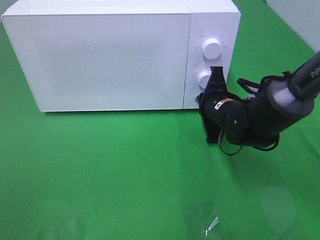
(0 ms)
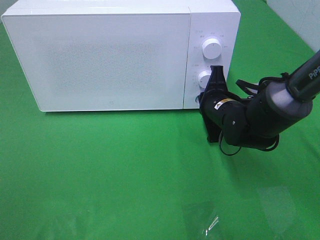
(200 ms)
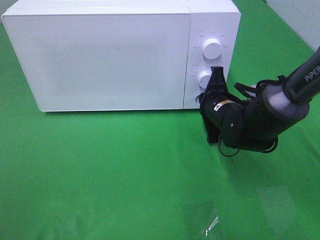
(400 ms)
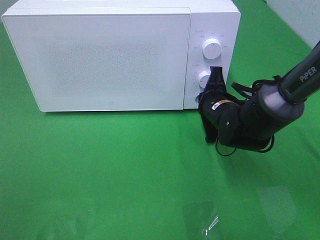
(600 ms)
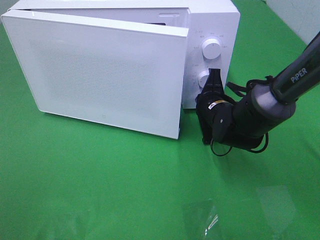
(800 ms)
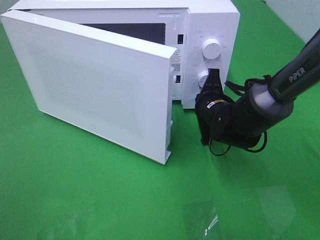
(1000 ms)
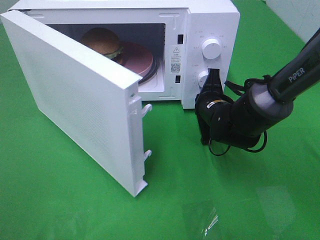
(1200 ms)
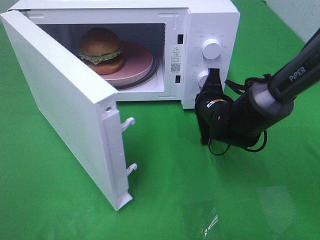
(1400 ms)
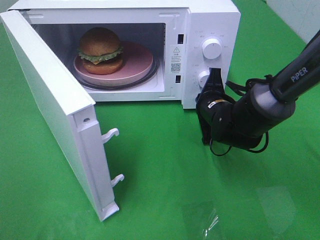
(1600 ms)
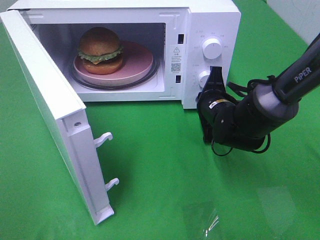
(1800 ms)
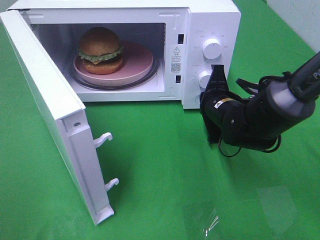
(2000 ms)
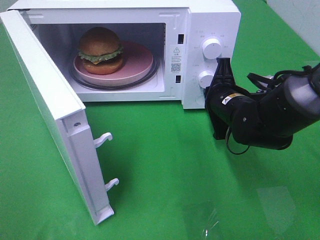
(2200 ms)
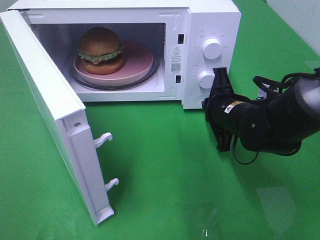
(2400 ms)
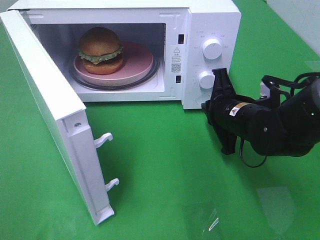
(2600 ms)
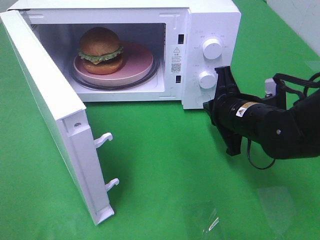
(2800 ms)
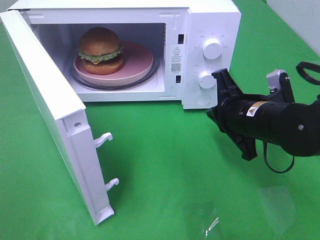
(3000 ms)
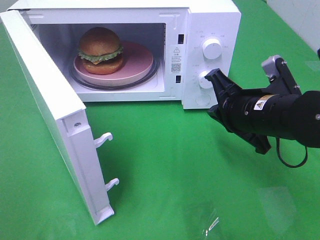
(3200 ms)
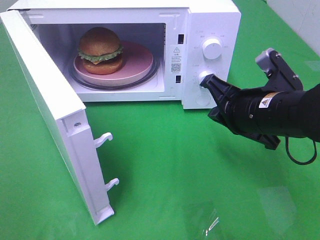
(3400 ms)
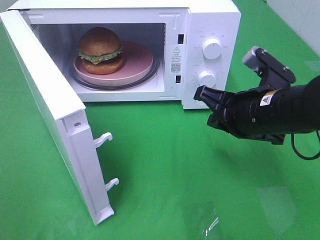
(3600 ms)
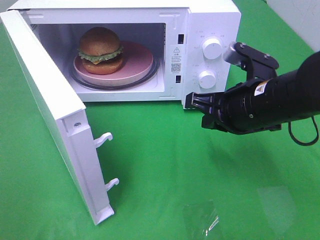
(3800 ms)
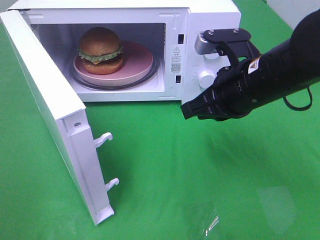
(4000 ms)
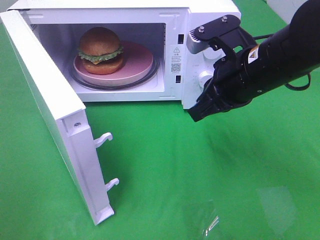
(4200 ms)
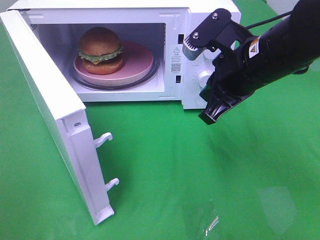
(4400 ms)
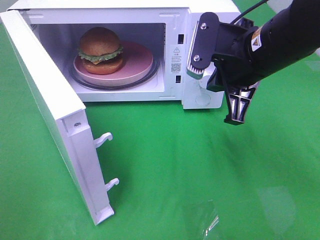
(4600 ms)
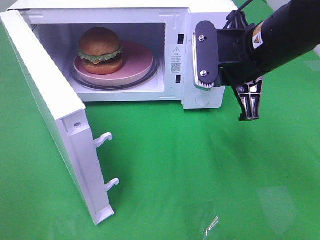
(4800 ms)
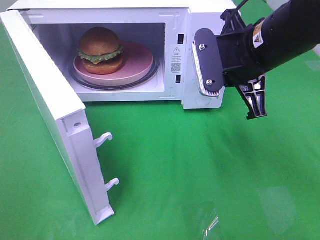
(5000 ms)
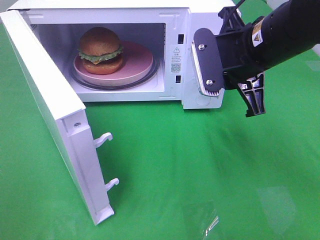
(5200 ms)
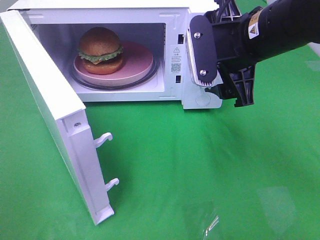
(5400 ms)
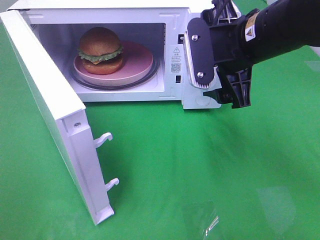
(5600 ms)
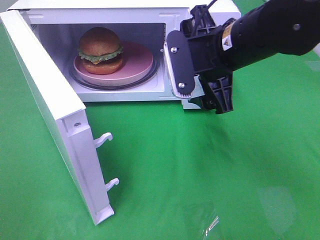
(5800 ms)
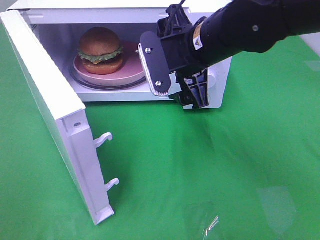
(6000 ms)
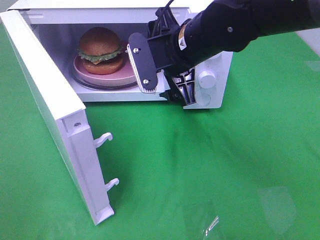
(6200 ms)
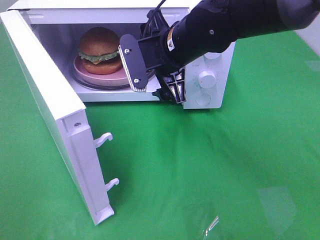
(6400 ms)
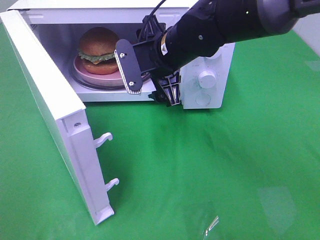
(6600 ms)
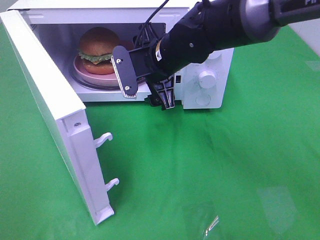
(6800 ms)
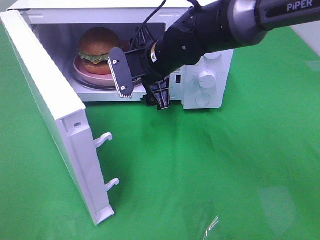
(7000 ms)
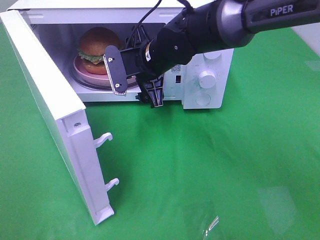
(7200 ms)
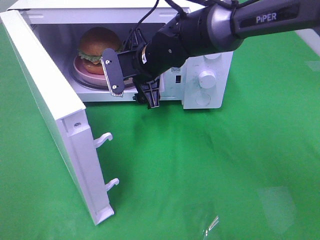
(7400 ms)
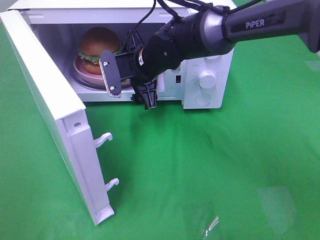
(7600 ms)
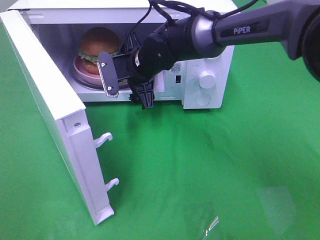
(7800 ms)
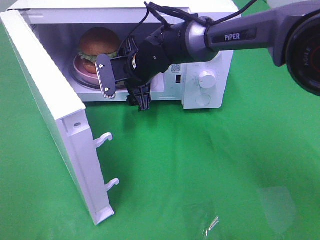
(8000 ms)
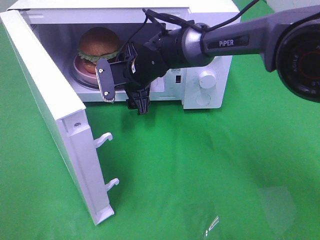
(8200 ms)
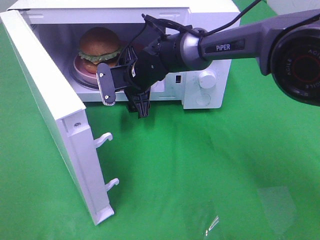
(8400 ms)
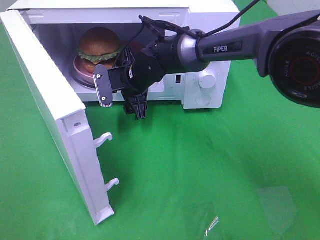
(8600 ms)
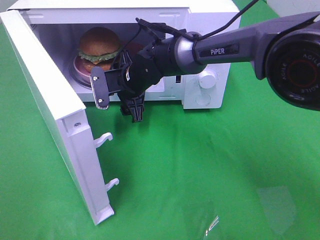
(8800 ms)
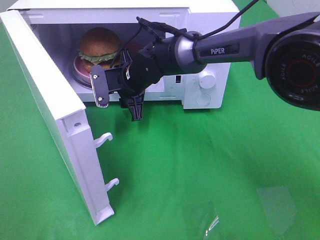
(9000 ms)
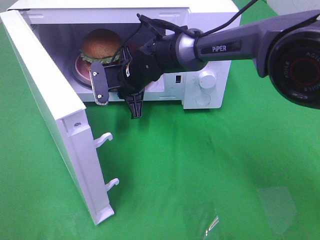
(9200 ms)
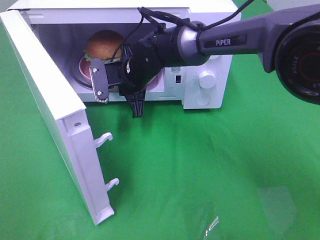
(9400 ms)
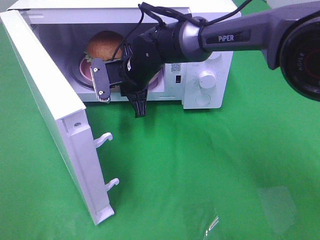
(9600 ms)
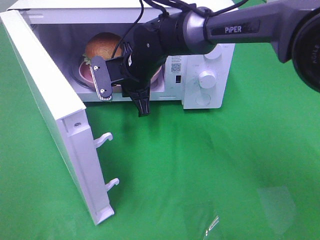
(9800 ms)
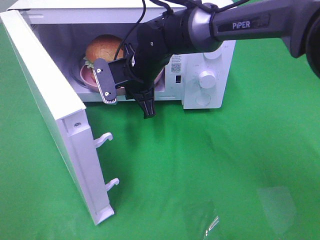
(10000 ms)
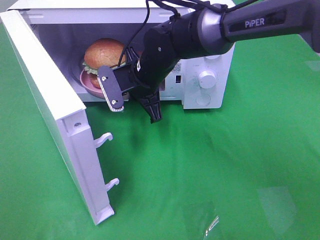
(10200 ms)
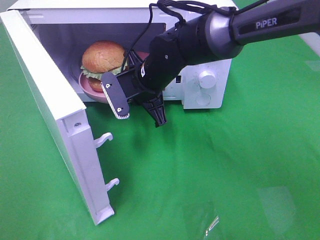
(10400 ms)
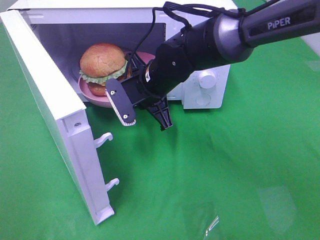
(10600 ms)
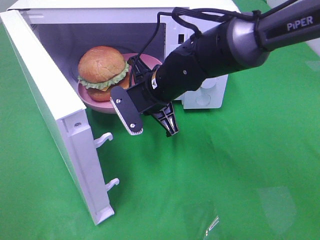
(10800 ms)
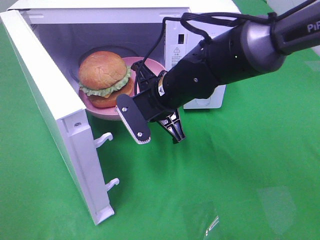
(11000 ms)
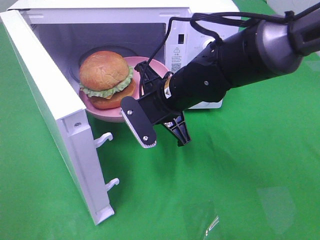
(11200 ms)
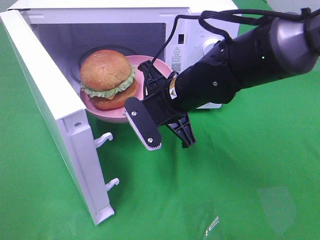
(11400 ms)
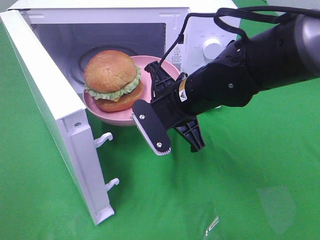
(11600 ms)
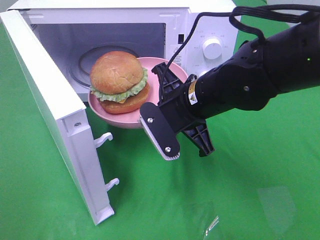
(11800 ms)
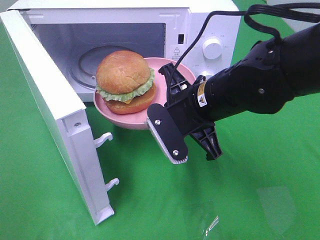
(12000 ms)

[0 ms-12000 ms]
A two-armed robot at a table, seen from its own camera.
Task of the whole recording: Heat the burger.
Step, 0 ms to 2000 ms: Right hand: press the switch.
Step, 2200 ms to 9200 ms: Right hand: grab the plate with the hamburger.
1600 ms to 3000 ms: The right gripper goes about 10 cm backward and upward.
3000 ms to 4400 ms: The right gripper heads upward, covering some 10 cm.
4400 ms to 6000 ms: The right gripper is displaced to the left by some 5 cm, and opens its fingers.
6000 ms to 7600 ms: The right gripper goes approximately 15 cm forward, downward and to the left.
7600 ms to 9000 ms: The right gripper moves some 5 cm, and closes its fingers.
9000 ms to 10400 ms: The right gripper shifts by roughly 5 cm, and closes up.
10400 ms to 12000 ms: The right gripper heads backward and to the right, covering some 15 cm.

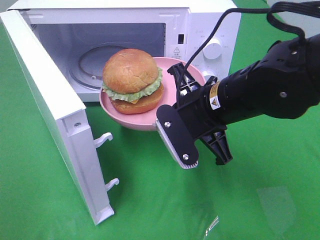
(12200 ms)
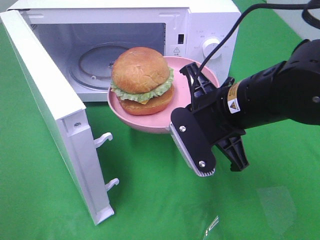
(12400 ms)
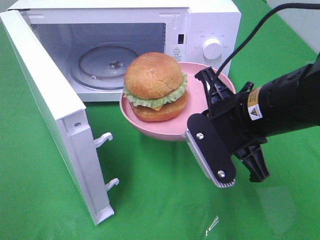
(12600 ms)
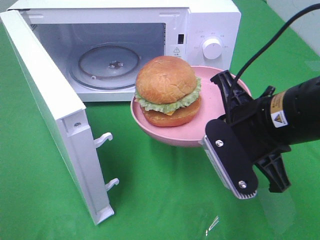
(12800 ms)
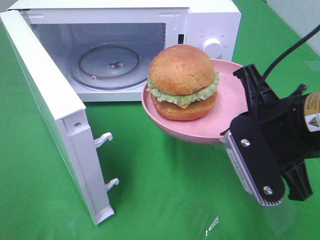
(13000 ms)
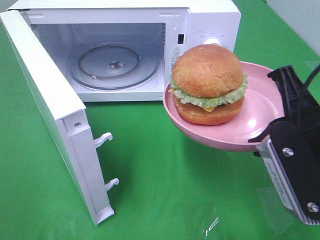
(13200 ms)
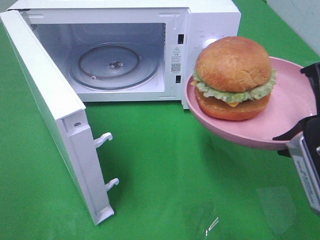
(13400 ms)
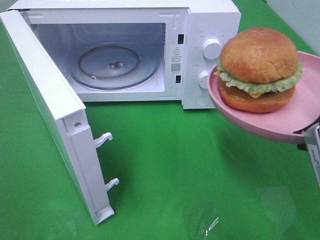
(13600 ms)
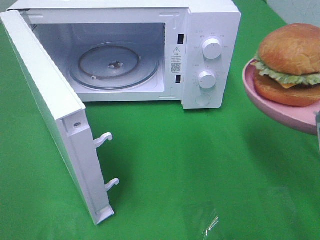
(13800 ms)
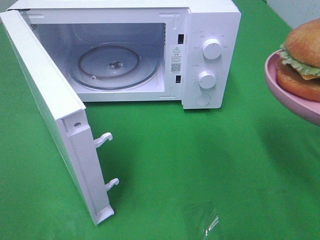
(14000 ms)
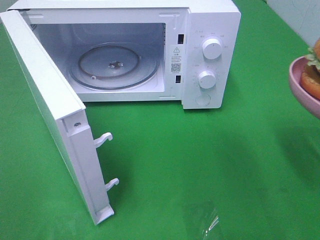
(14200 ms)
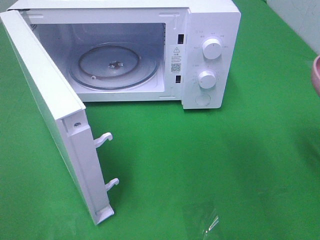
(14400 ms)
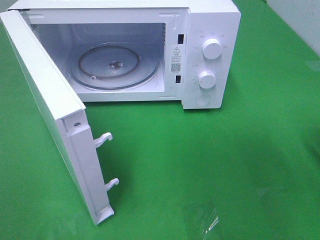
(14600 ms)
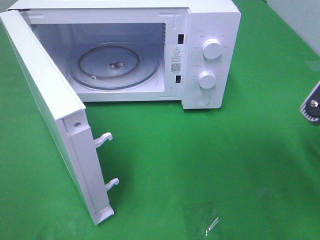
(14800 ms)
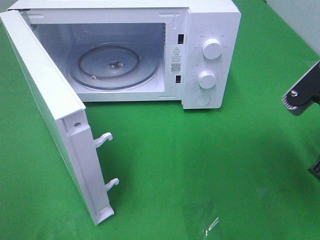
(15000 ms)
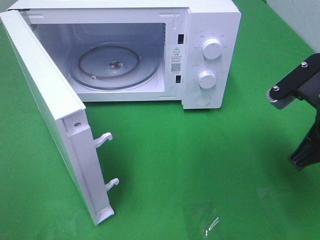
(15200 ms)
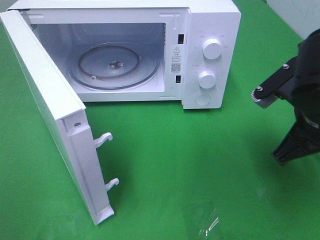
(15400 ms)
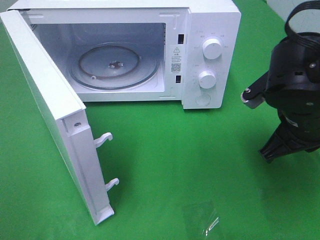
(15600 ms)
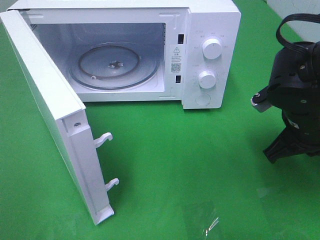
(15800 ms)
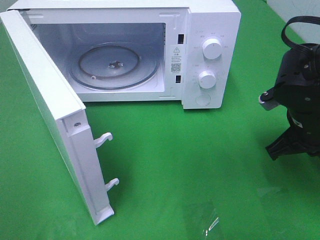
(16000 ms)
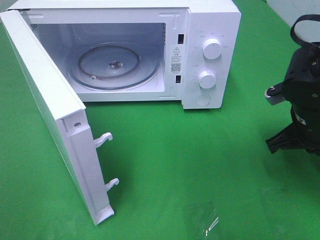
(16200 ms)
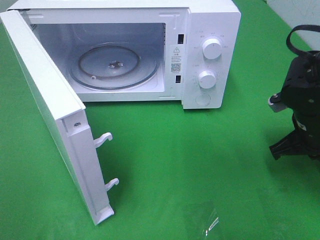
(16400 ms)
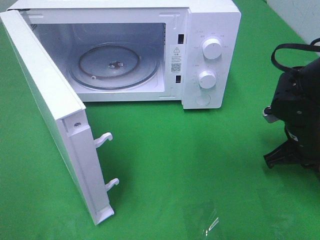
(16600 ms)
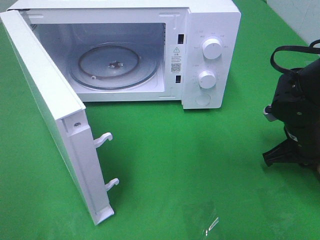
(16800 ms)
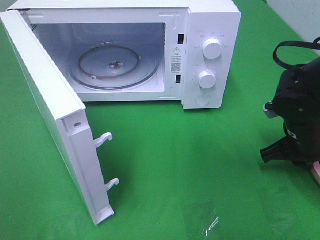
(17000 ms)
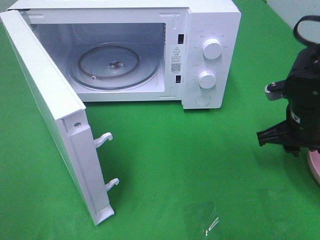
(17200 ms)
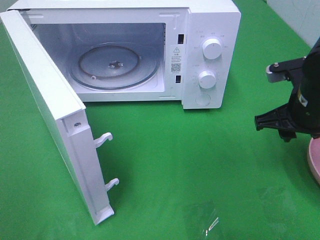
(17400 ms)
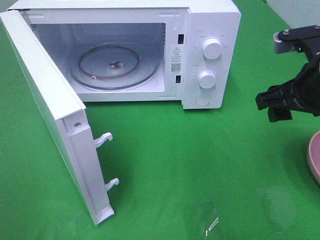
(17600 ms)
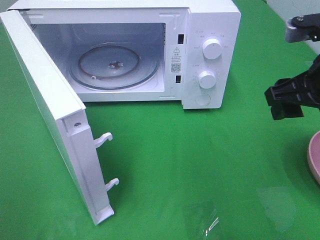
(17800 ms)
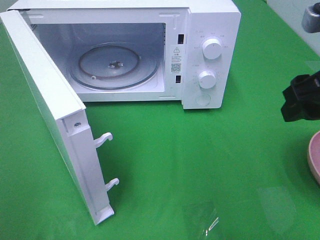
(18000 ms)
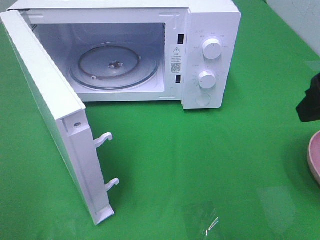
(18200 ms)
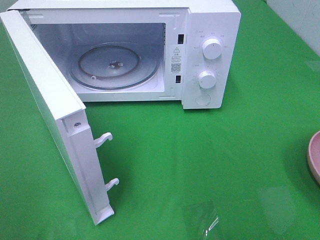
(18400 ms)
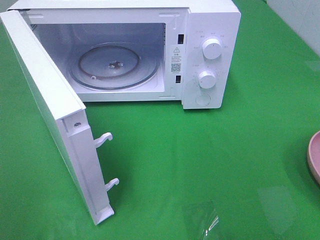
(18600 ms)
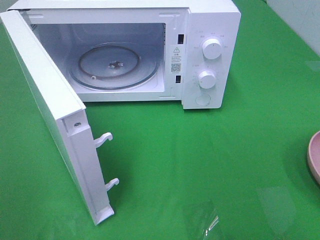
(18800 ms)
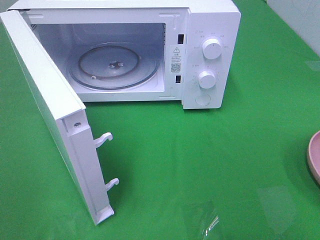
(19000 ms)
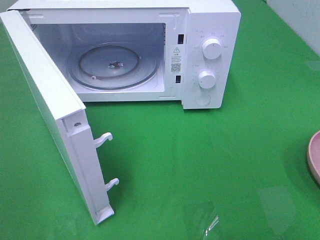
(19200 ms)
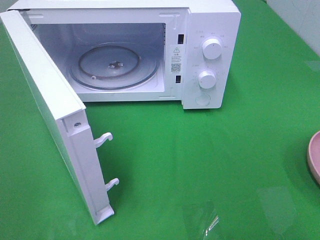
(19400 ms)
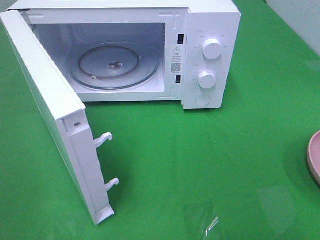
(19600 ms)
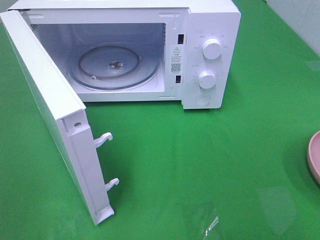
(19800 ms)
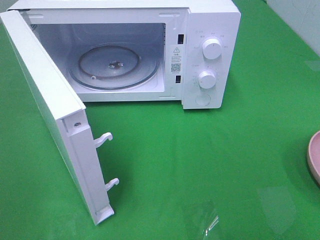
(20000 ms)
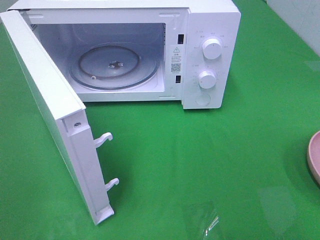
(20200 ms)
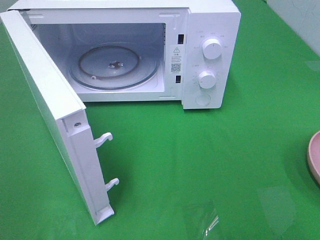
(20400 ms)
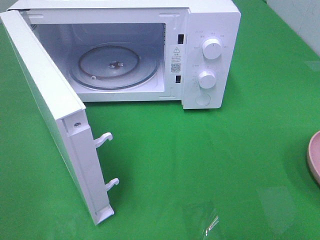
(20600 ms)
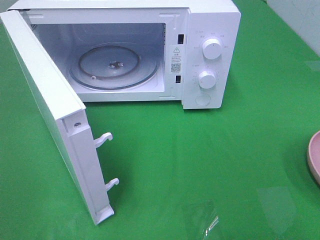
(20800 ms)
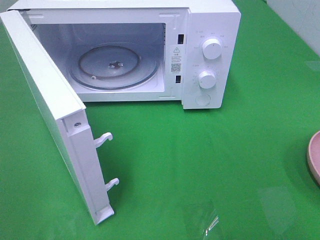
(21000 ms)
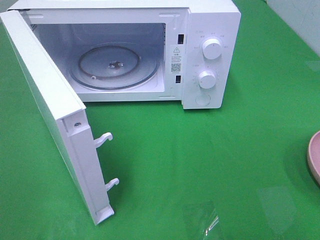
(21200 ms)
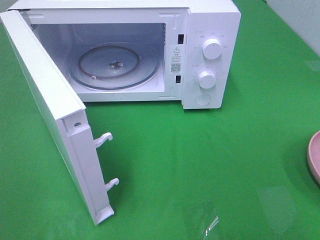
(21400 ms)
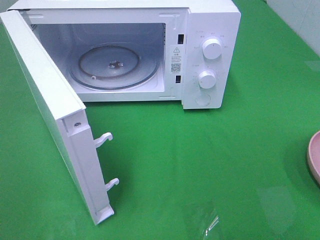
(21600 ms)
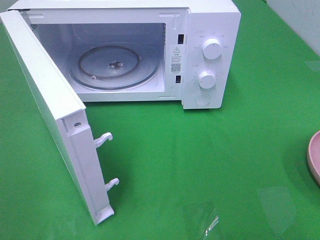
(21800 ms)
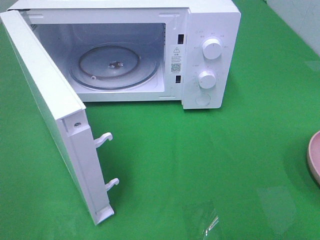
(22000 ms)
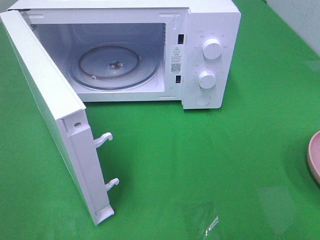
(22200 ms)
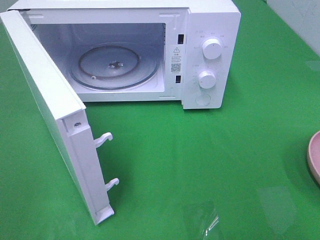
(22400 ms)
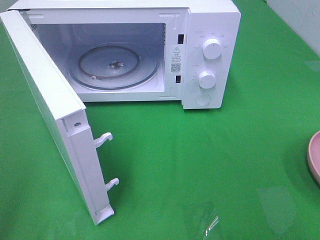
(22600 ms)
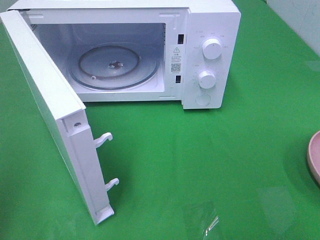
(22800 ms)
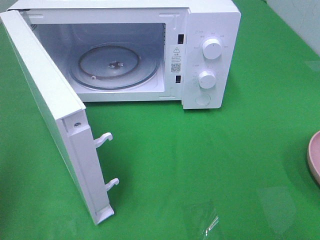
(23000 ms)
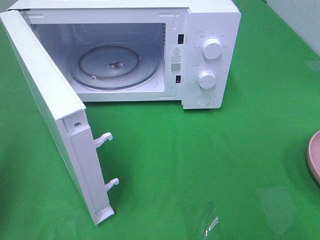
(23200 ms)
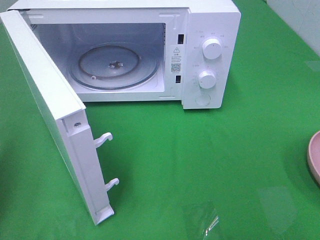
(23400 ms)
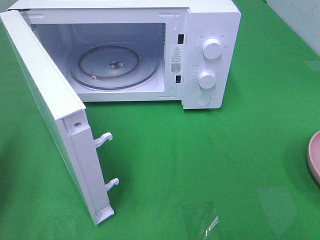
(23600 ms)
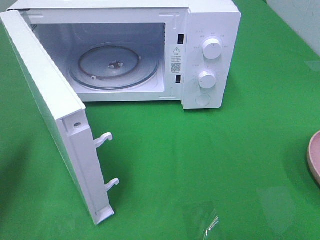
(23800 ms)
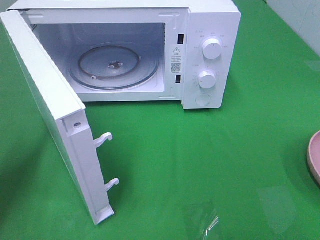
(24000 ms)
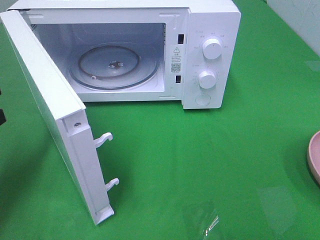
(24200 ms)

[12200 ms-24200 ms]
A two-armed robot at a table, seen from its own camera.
Task of the whole recording: Heat the burger.
Step, 12200 ms to 17000 ms: Right hand: place the plate on the table.
12200 ms to 13800 ms: The right gripper is displaced to the right, backward and upward by approximately 20 cm.
13800 ms to 15200 ms: The right gripper moves forward, about 5 cm.
15200 ms to 16600 ms: The right gripper heads downward and forward, covering some 15 cm.
16600 ms to 18200 ms: The right gripper is displaced upward and backward by approximately 25 cm, and opens.
18200 ms to 19800 ms: The right gripper heads backward, covering roughly 15 cm.
19800 ms to 21200 ms: Both grippers stay about where they are.
22600 ms to 24200 ms: The left gripper heads forward and downward, covering some 20 cm, and closes up.
